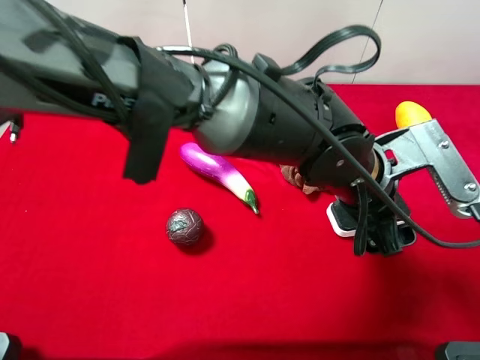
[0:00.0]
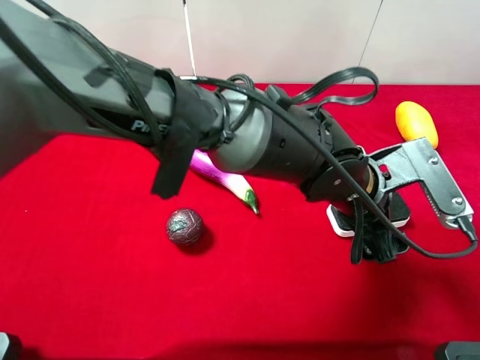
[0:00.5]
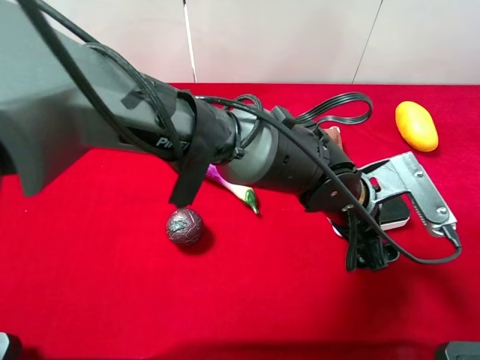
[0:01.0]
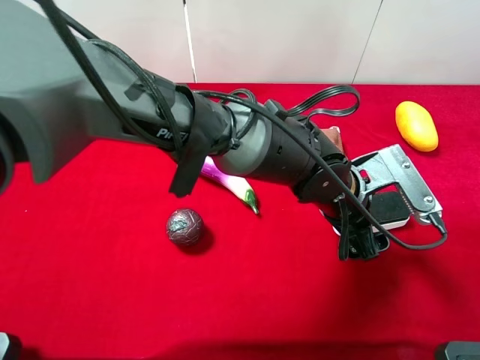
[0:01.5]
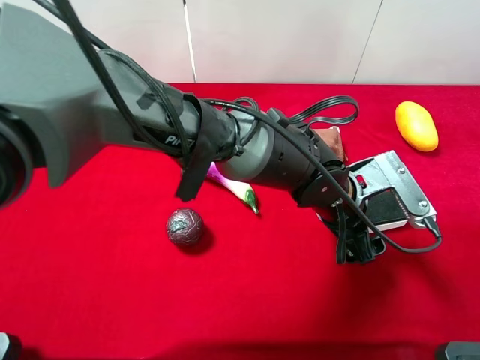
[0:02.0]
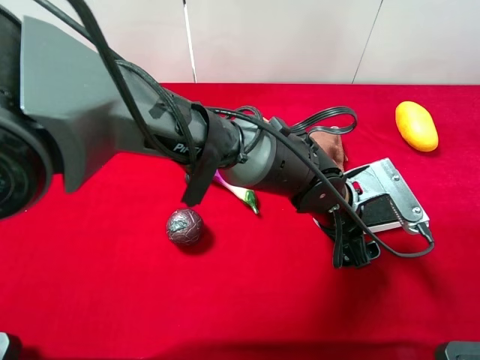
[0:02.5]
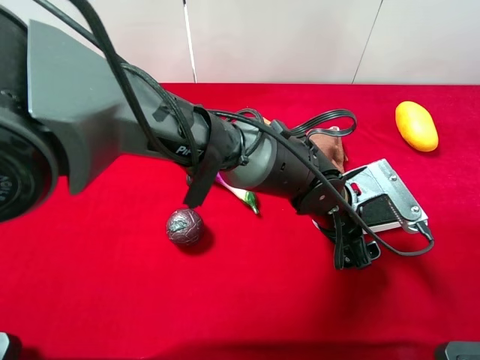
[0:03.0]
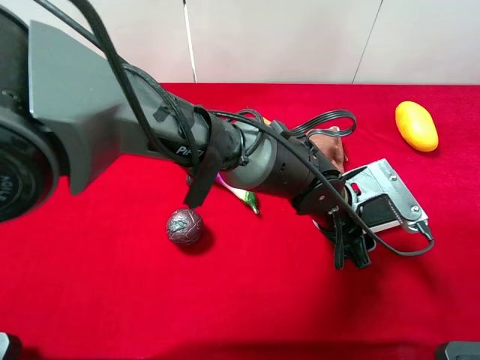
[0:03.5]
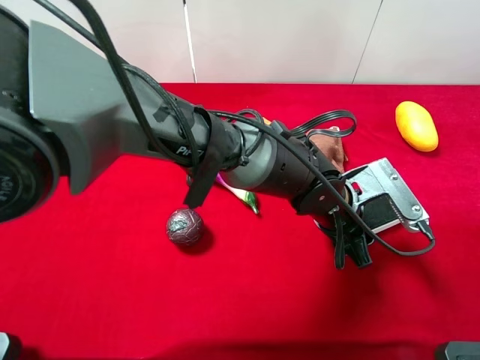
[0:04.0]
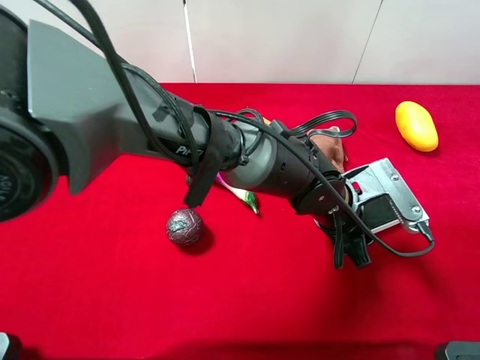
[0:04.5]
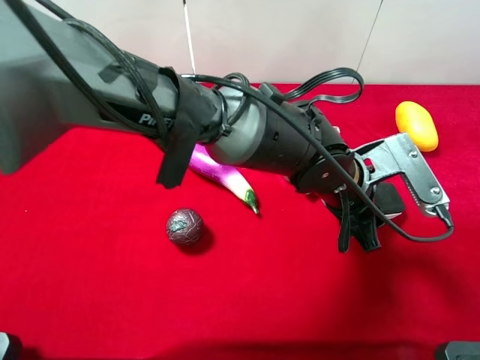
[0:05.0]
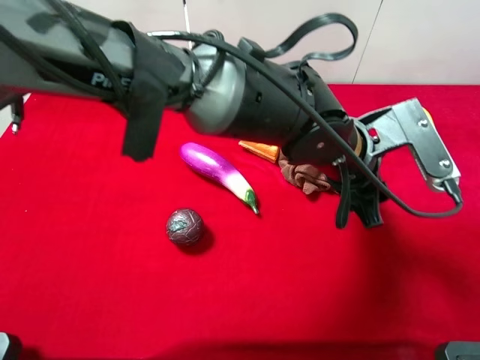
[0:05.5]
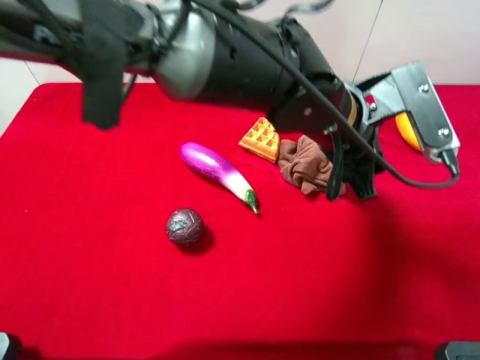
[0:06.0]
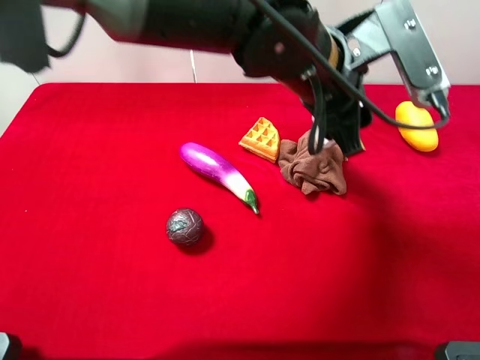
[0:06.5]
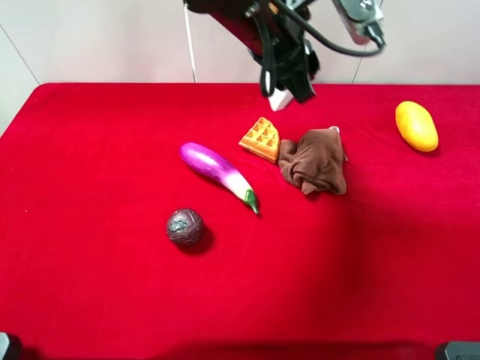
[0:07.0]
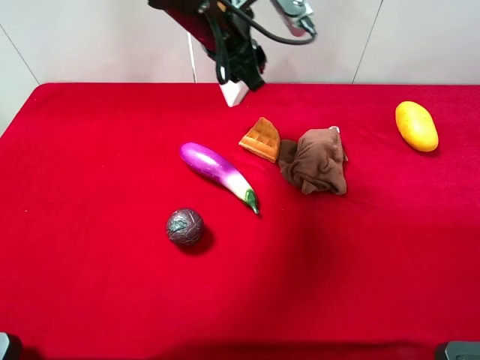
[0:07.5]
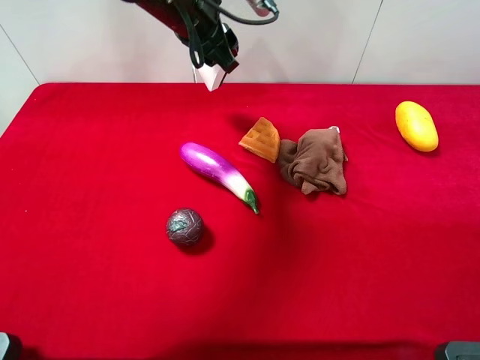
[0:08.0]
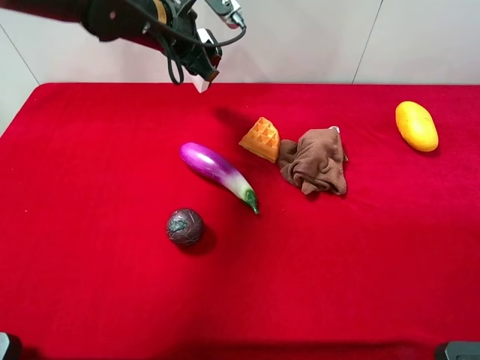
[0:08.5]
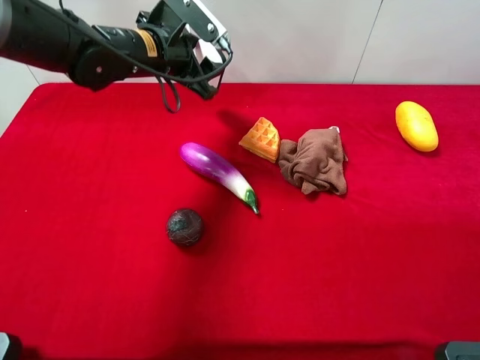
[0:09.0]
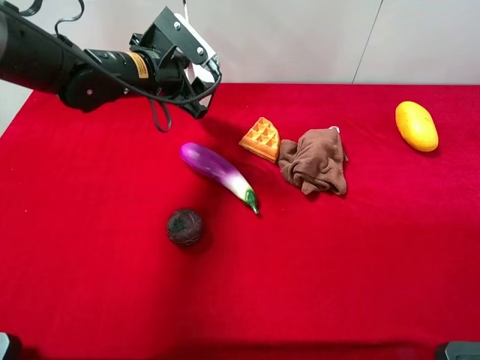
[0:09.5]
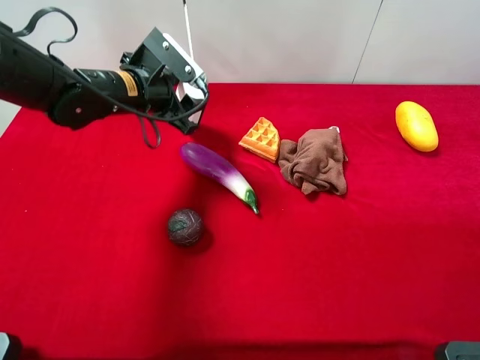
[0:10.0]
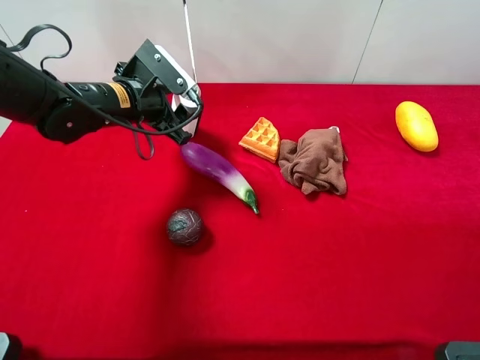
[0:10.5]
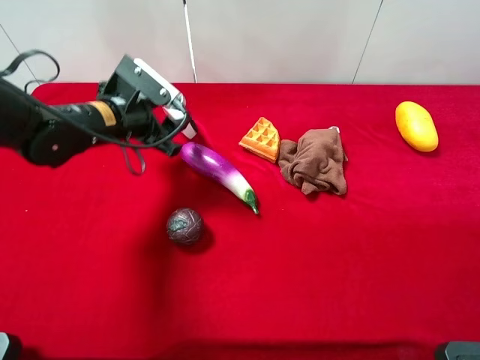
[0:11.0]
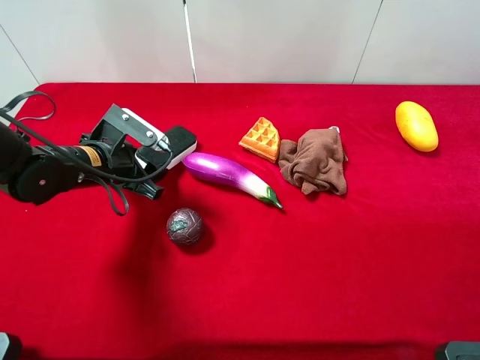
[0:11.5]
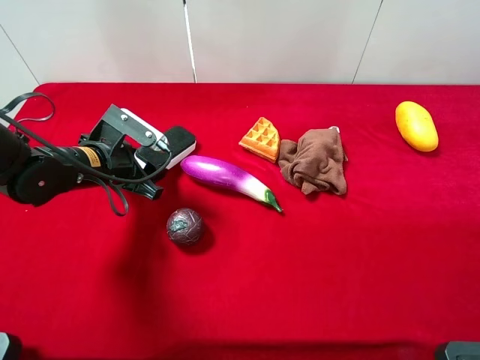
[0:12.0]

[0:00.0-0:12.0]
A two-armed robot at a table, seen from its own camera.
Task of the whole recording: the gripper move the object.
Step, 0:00.0 to 0:04.0: Grasp the white blackboard erasure with the left gripper.
0:00.0 to 0:02.0: The left gripper goes some 5 cm downward.
0:02.0 to 0:04.0: The left gripper closes up.
0:04.0 to 0:06.0: The left gripper moves upward, some 10 cm.
0:06.0 to 0:08.0: The left gripper shifts roughly 20 cm to the left and forward.
0:08.0 to 0:10.0: The left gripper moves downward and to the left, approximately 15 cm.
0:10.0 to 0:12.0: The left gripper heads backward, downward and to the left, covering roughly 10 cm.

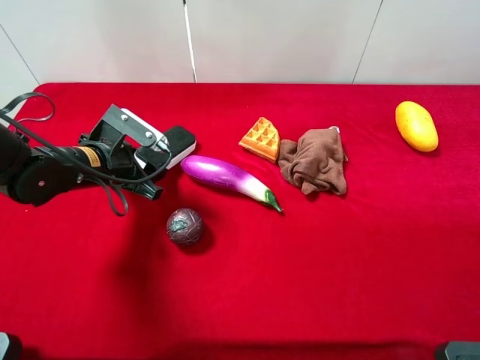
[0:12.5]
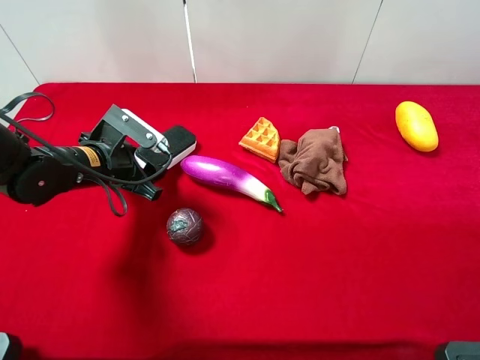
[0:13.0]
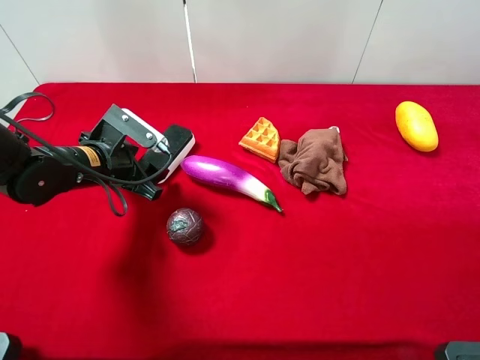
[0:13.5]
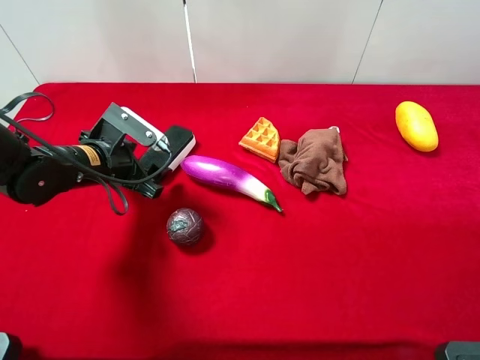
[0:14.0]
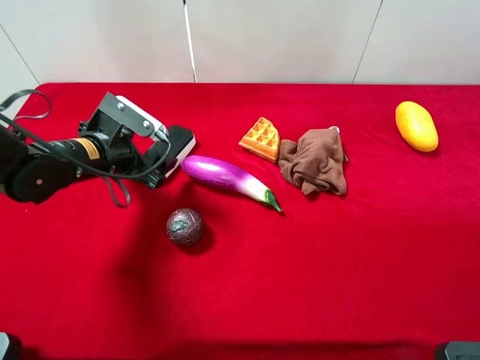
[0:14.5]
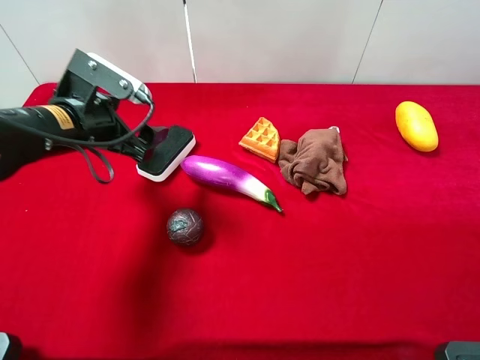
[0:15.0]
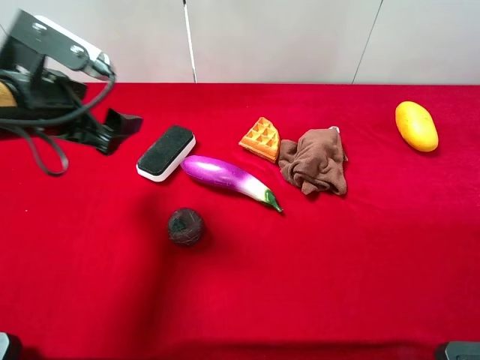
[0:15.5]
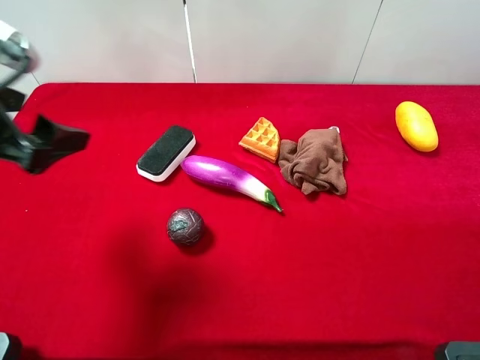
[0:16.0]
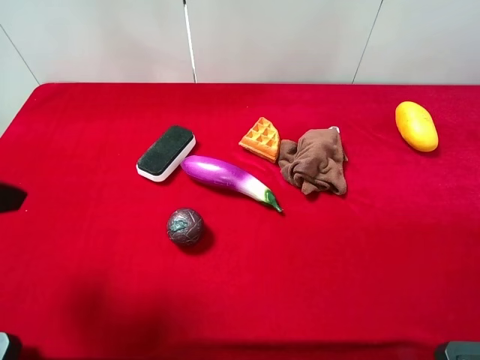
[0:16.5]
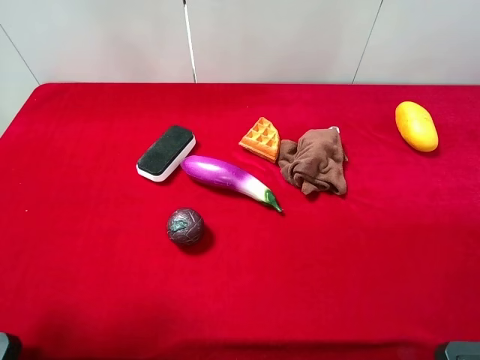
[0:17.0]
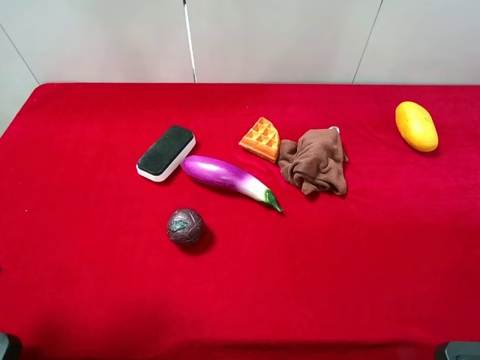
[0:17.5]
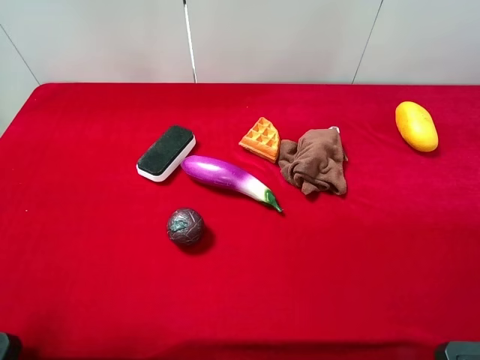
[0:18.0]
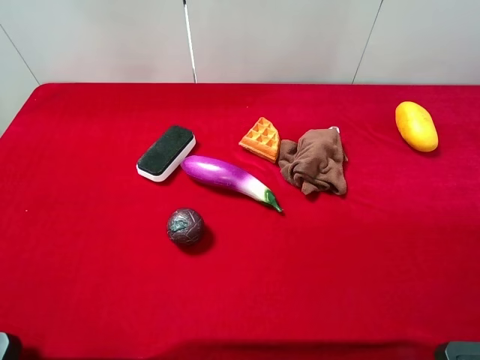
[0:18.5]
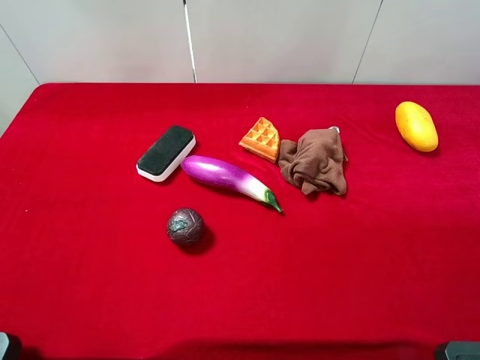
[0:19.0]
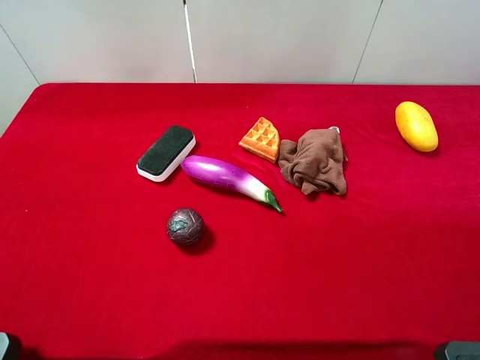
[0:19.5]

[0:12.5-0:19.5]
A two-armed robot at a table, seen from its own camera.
Task of the whole recording: the gripper move the object.
Step, 0:12.5 to 0:15.0: Place the white blackboard erasure on the table with the left gripper.
0:12.5 to 0:14.5: The left gripper opens.
0:14.5 to 0:16.0: The left gripper travels upward and backward by roughly 20 cm.
0:16.0 to 0:17.5: The left gripper moves backward, approximately 5 cm.

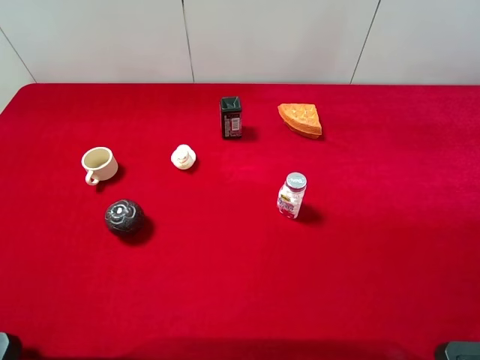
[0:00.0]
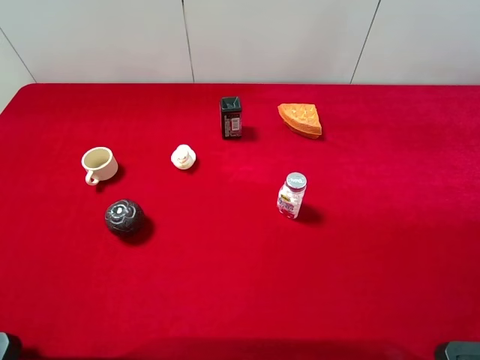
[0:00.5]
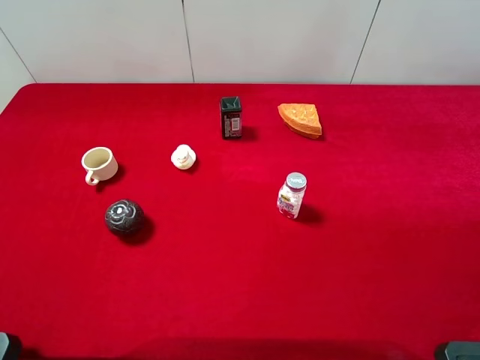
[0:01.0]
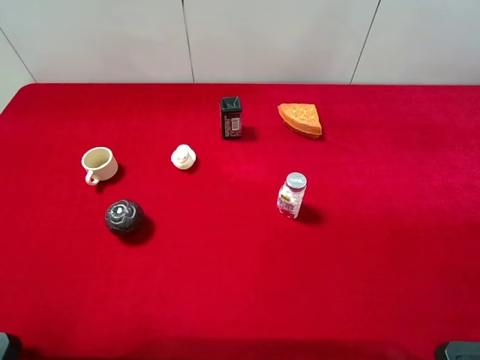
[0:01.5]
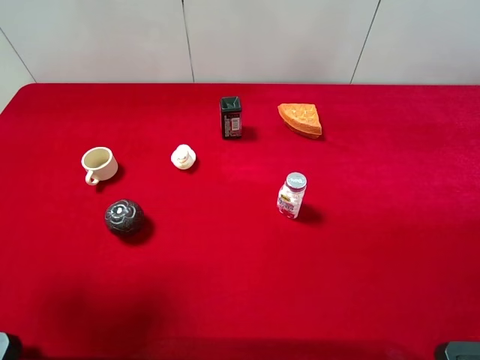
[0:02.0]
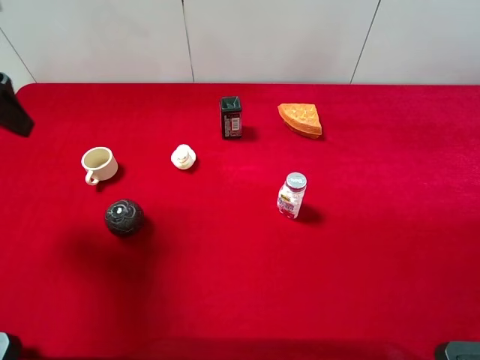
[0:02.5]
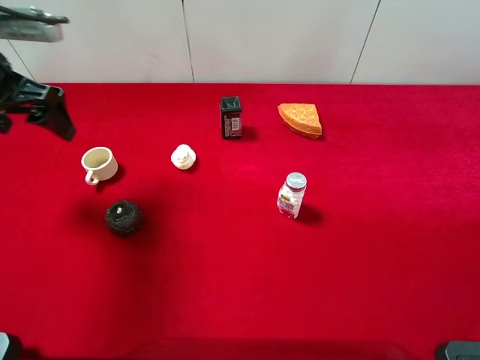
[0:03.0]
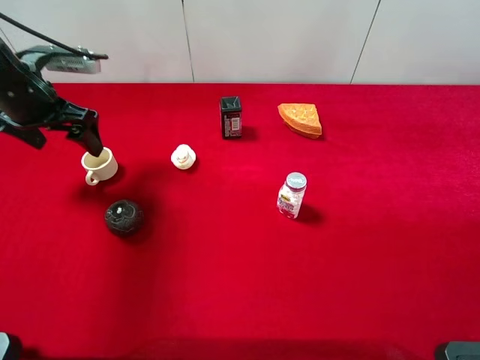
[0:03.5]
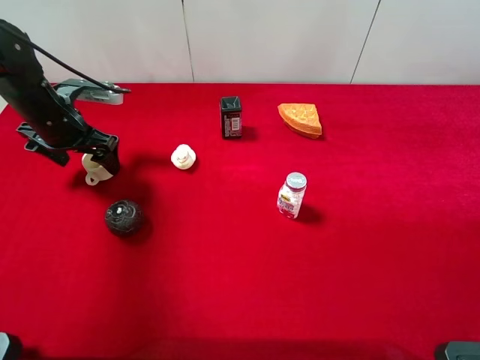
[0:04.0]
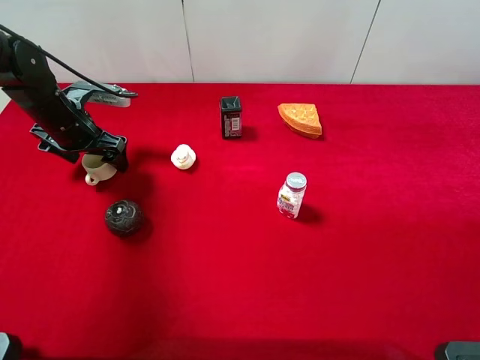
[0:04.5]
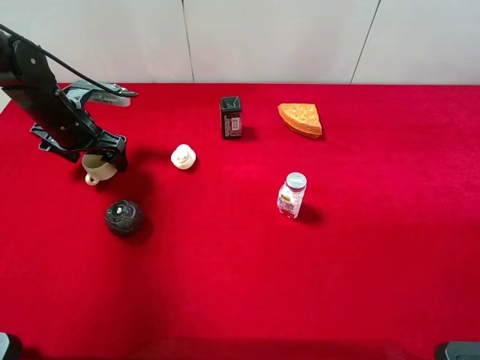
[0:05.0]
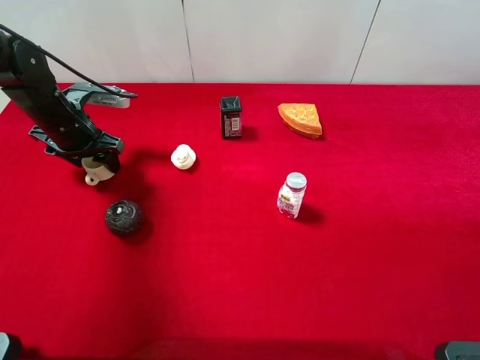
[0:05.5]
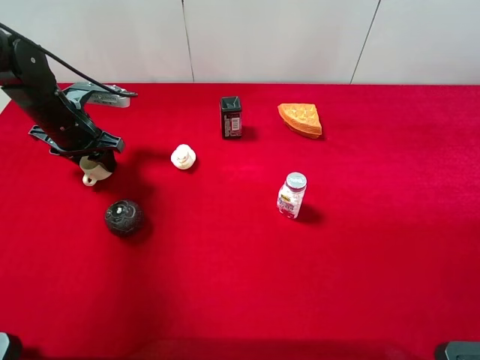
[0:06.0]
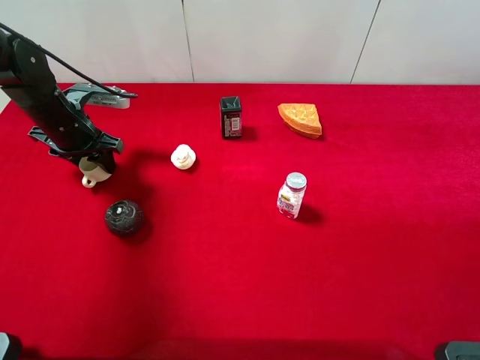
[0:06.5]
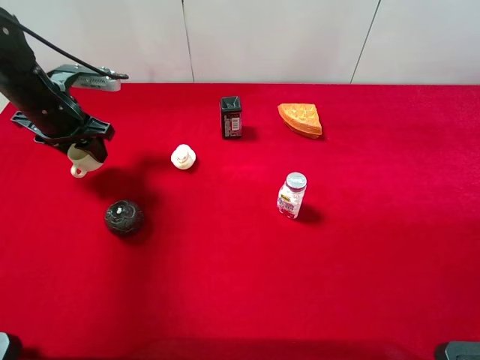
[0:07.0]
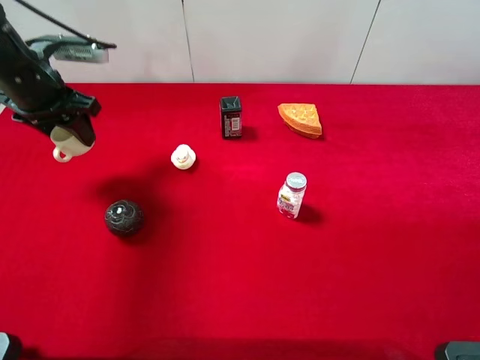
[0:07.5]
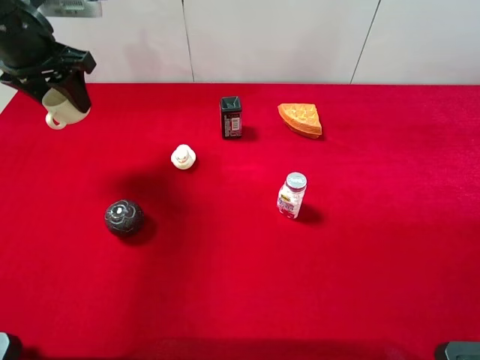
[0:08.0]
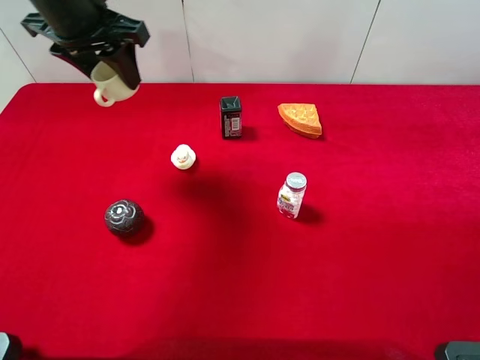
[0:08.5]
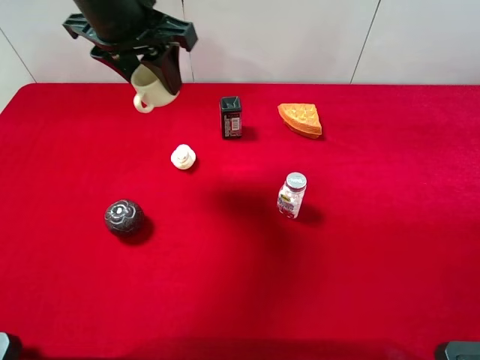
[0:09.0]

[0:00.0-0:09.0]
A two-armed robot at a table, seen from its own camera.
Task of the whole recording: the gripper move the object.
Step, 0:00.0 to 0:05.5: Grasp the tea cup with the left gripper.
0:00.0 to 0:02.0: The left gripper goes approximately 15 cm forward.
0:02.0 to 0:04.5: The left gripper travels downward and forward by approximately 30 cm.
0:04.5 to 0:07.0: The left gripper closes.
0:07.0 to 0:09.0: The left gripper shifts some 20 cm to the right and upward.
